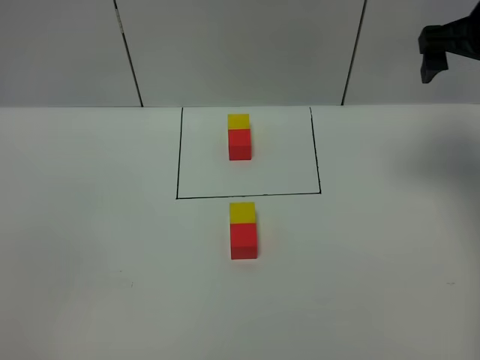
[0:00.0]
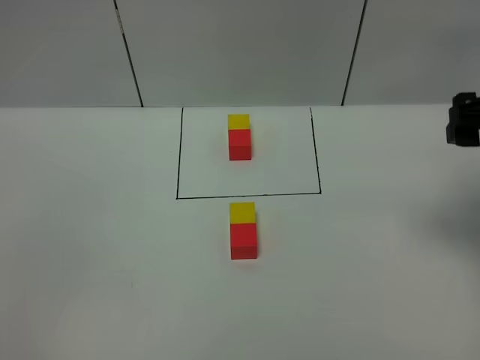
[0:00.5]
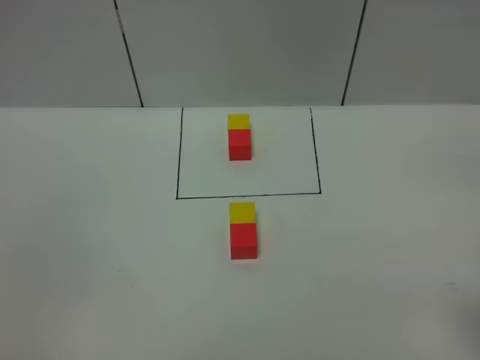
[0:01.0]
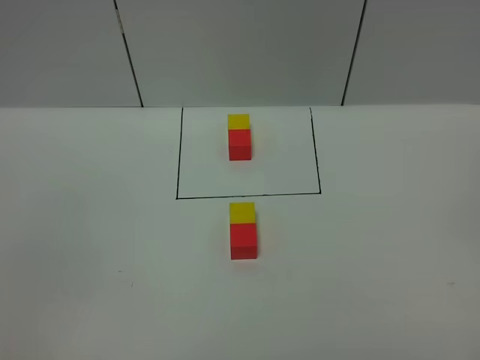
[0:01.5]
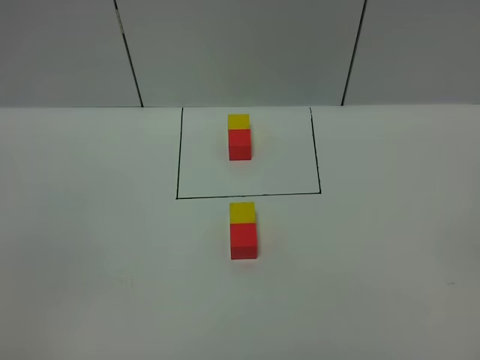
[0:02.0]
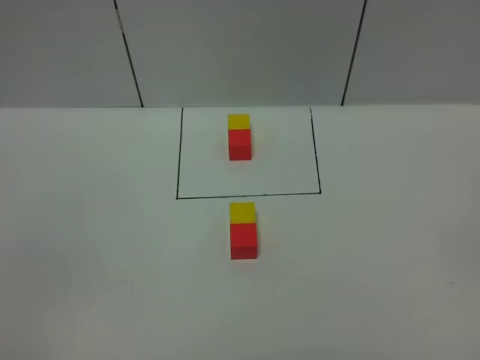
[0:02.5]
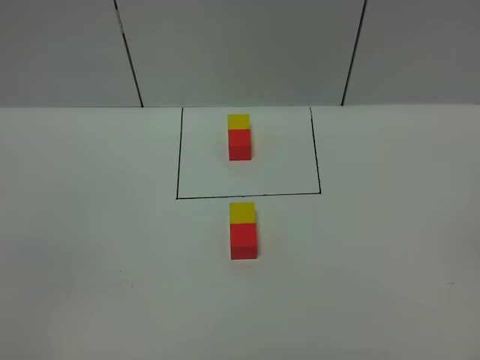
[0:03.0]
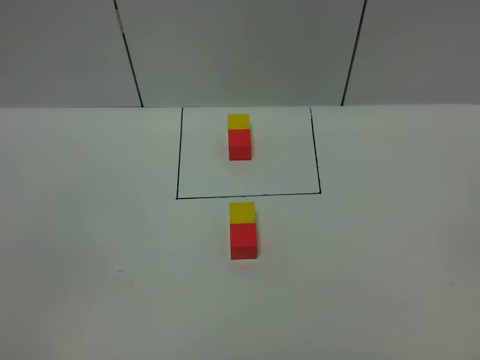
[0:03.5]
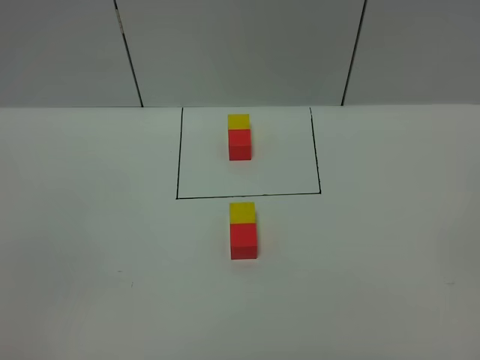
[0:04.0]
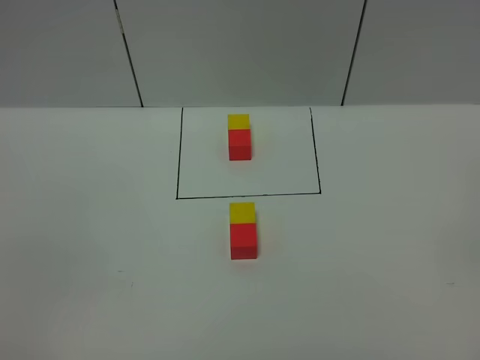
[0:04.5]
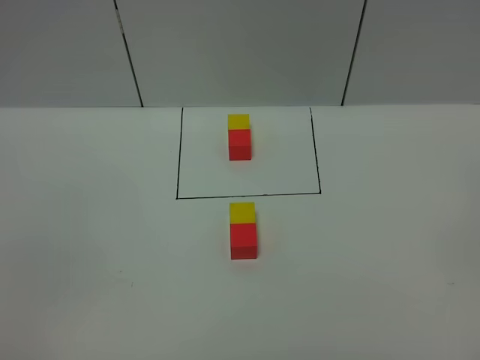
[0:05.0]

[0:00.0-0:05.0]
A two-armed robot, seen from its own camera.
Task of the whole recording: According to the building block template in front, assemble the scattered blocks together.
0:00.0 to 0:02.5: The right gripper shifts approximately 40 cm backward.
0:02.5 to 0:05.0: Both grippers stay put.
